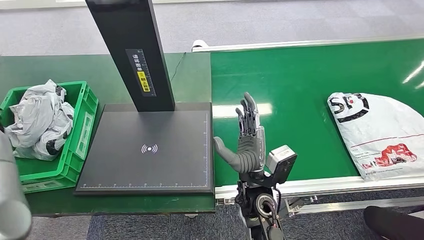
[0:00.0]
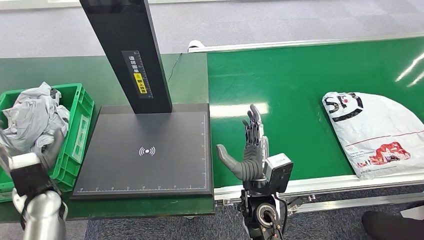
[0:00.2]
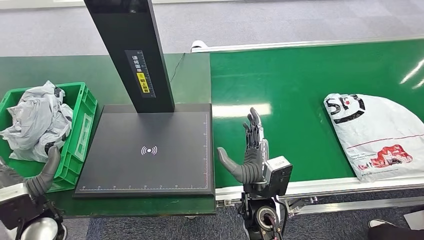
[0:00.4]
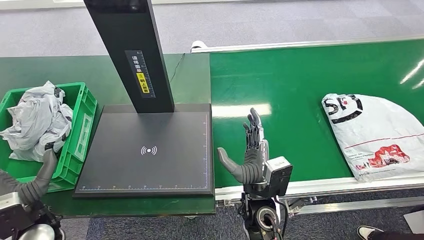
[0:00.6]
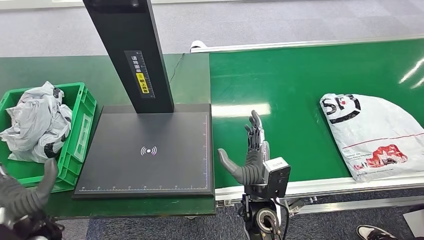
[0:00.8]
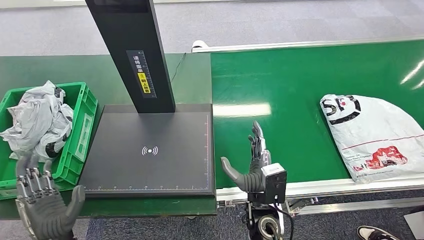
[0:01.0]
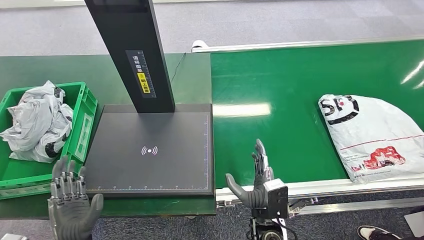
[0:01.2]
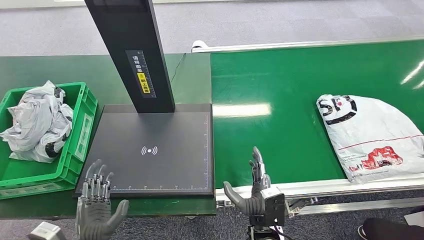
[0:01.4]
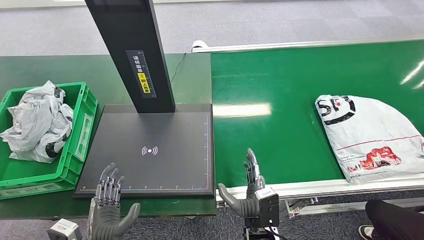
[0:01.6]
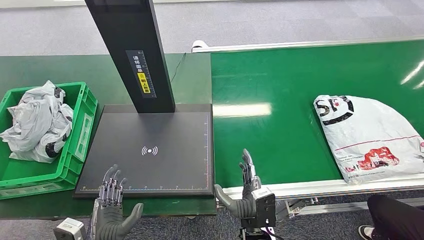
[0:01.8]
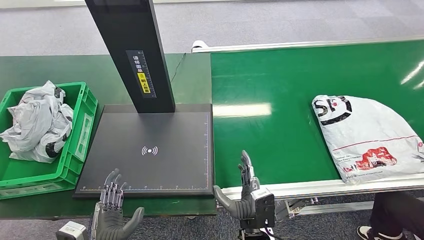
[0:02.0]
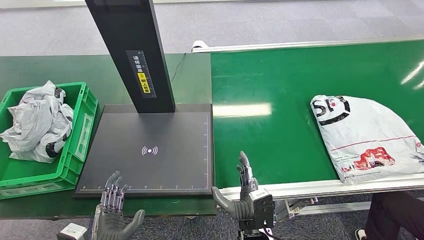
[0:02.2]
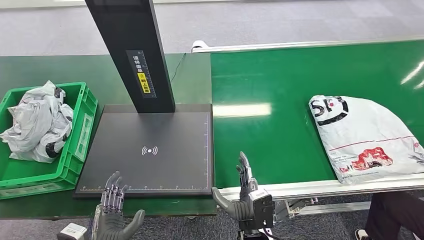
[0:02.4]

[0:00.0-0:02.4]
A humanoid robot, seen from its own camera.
Task of the whole recording: Weigh the package on the weighing device and place it in the left basket.
Step, 0:00.0 to 0:02.2: Place the package into the parcel locker.
0:01.2 to 0:02.4: The left hand changes place by approximately 5 cm.
